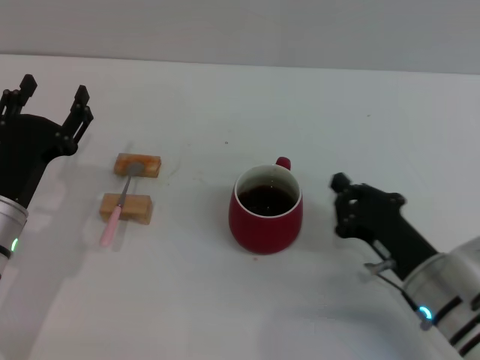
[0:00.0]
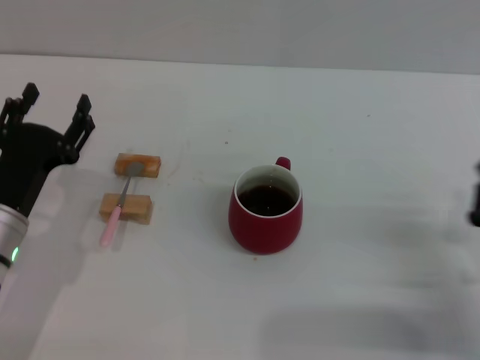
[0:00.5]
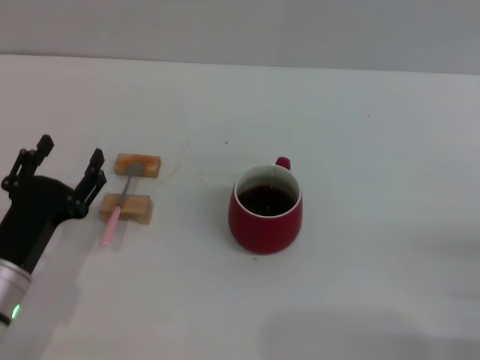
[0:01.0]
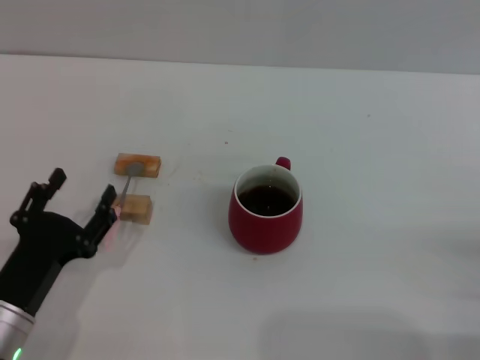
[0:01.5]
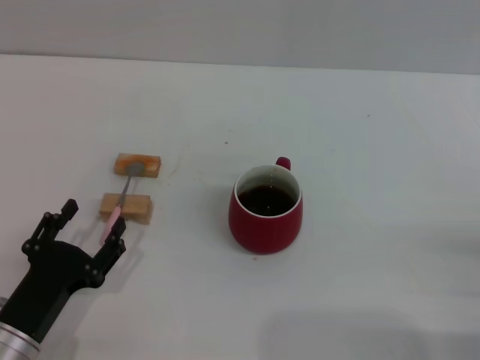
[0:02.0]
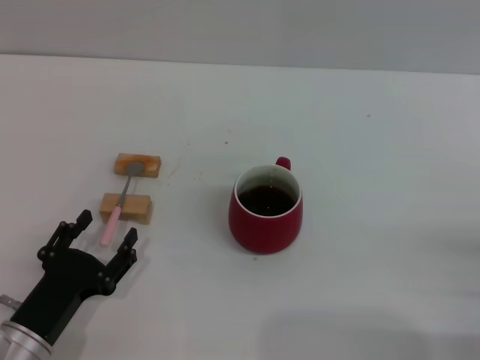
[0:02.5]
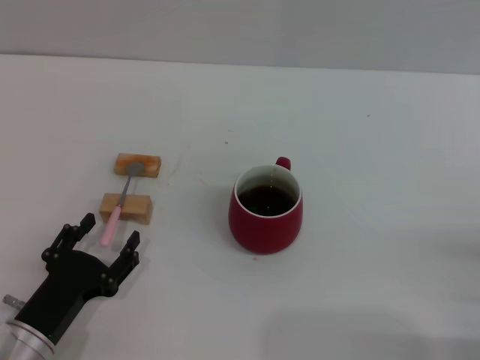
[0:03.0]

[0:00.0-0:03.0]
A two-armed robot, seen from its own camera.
Task of the whole recording: Move the red cup to the center, lift the pink spoon, stir it three times in the cup, and put the spoon into the cup.
0:00.0 to 0:01.5: The left gripper heads backward, covering some 10 cm, while the right gripper heads to the right and backward, covering about 15 cm.
0:01.5 to 0:03.0: There are only small adjustments of the grippers.

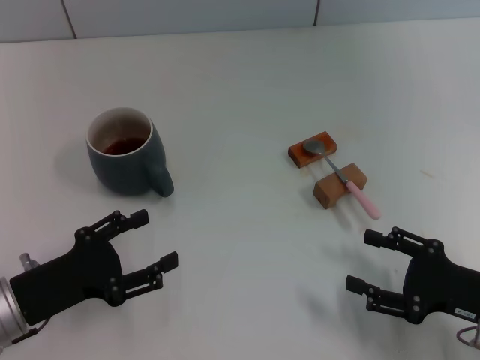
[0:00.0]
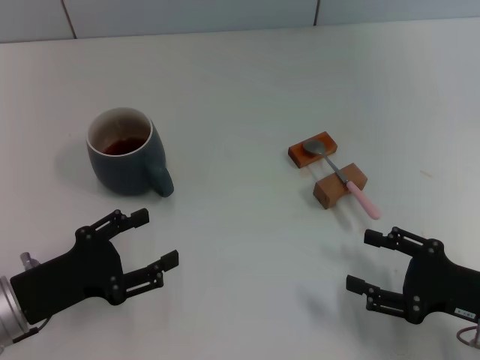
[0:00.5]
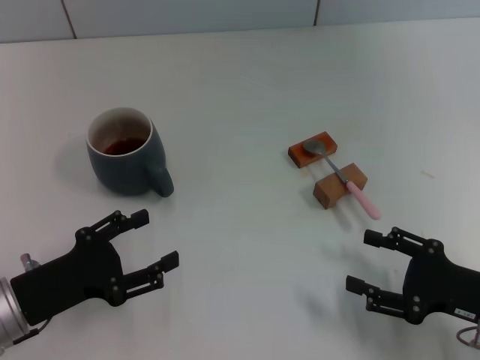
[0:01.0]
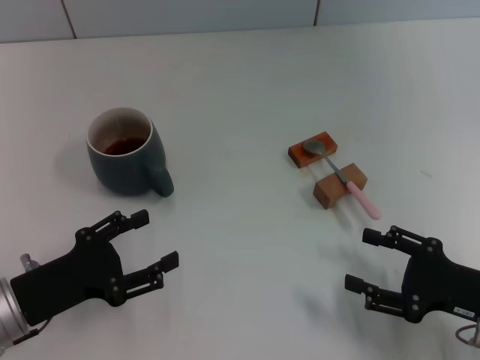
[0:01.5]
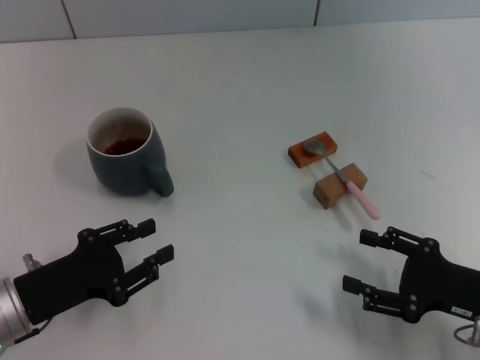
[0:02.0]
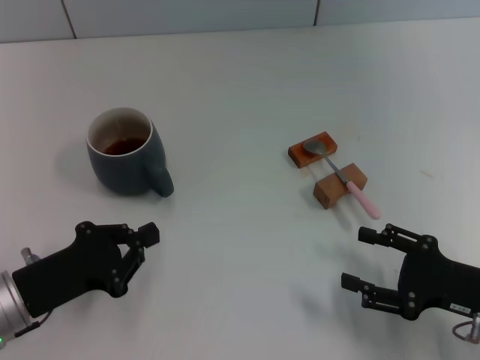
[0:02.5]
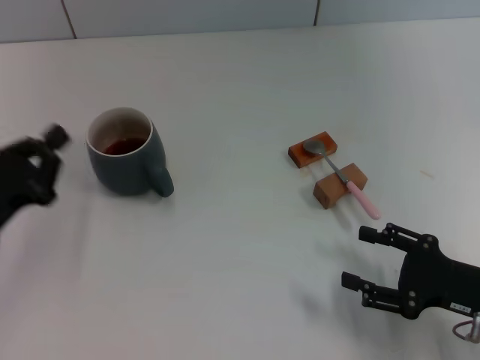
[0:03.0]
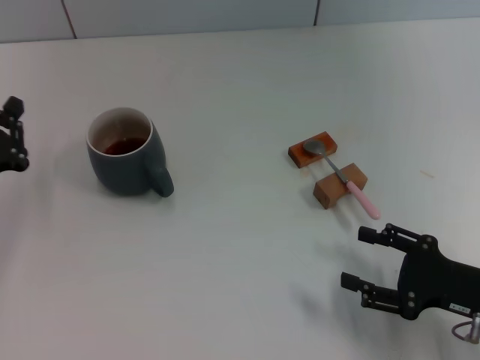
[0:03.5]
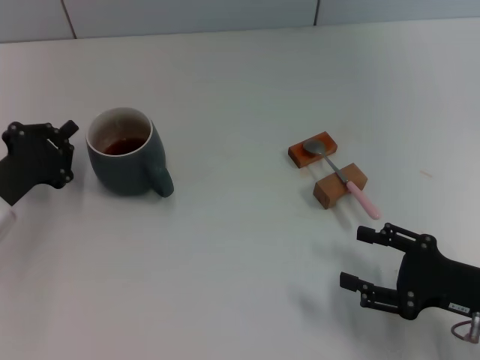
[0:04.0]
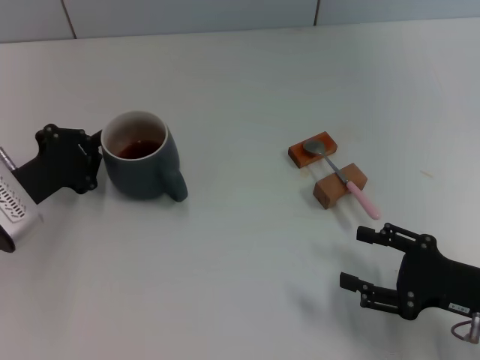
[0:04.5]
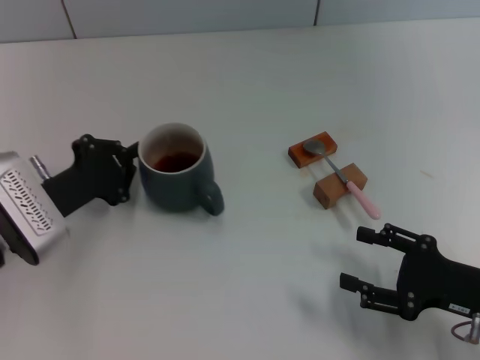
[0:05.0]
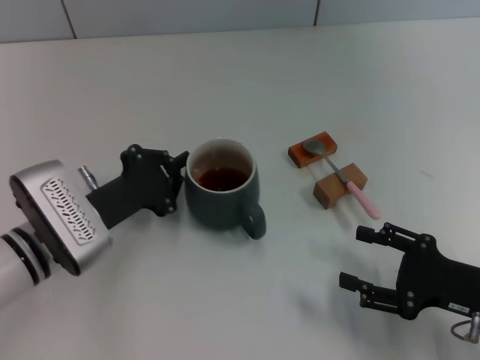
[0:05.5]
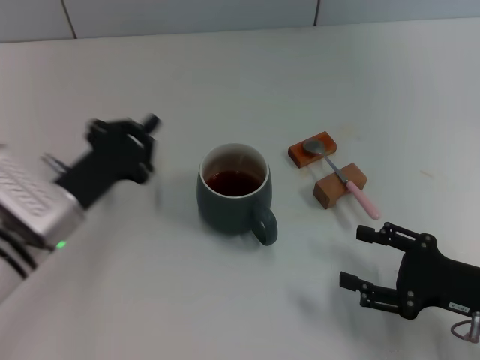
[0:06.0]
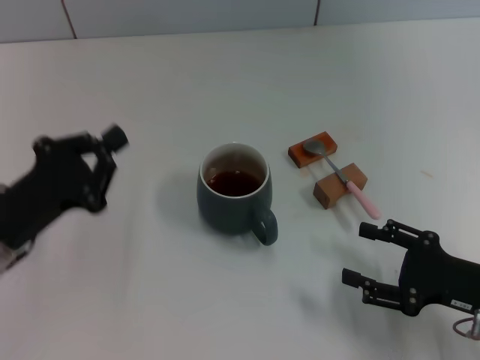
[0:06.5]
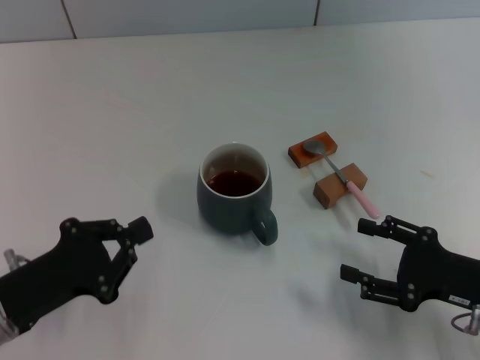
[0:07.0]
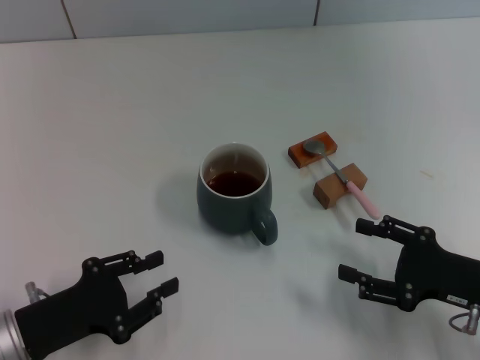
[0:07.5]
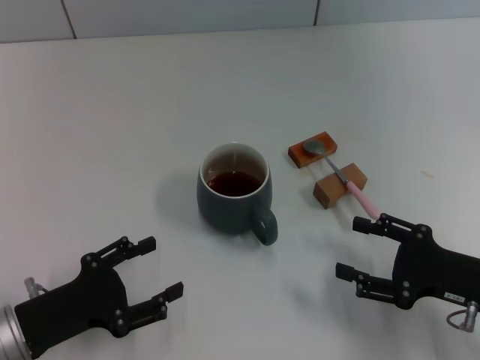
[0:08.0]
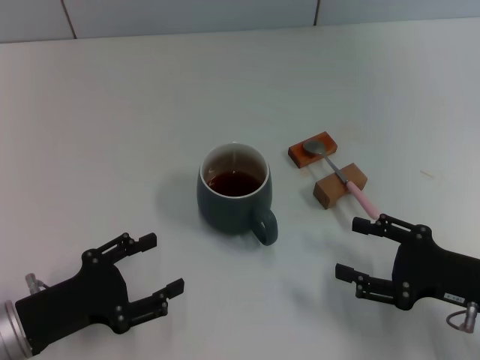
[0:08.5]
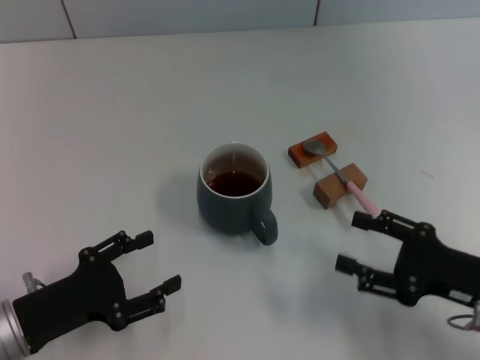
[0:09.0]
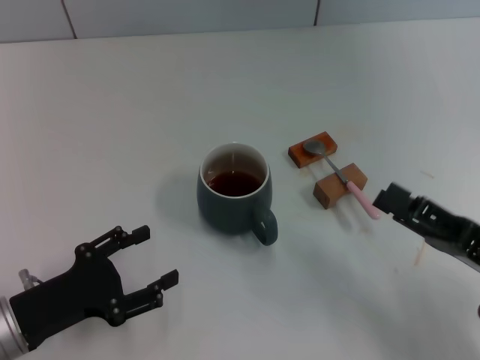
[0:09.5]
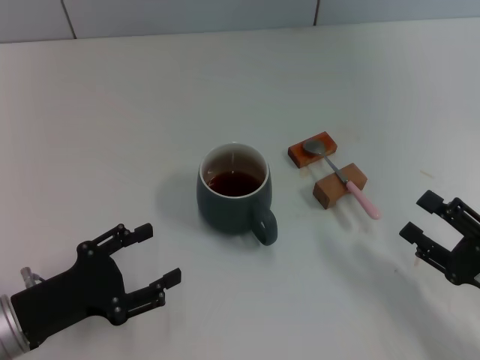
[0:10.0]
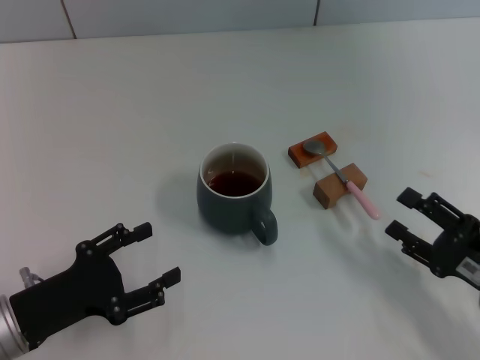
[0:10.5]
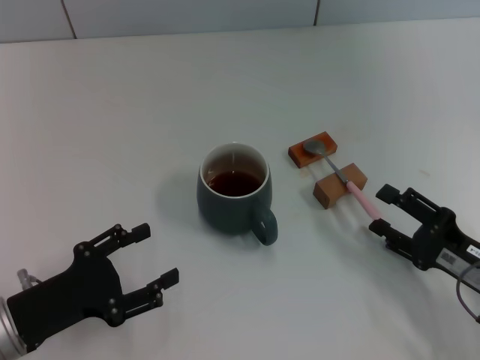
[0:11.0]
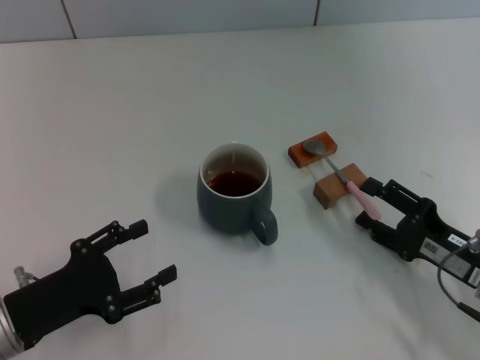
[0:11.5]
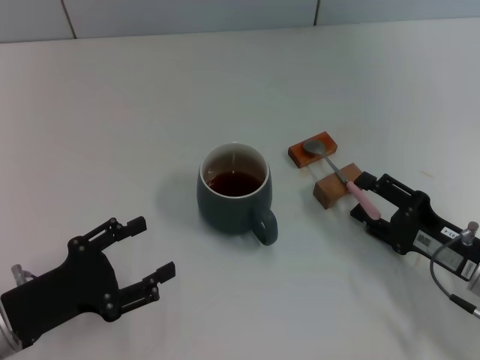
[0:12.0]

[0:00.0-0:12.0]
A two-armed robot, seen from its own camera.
Task of the whole recording: Move the grey cup to the center, lift the pink spoon, stir it three times in the cup, and put the spoon into the cup.
Step, 0:00.0 to 0:06.0: Move the cup with coffee to the center of view with the left gripper.
0:00.0 to 0:02.0: Neither gripper changes place.
0:02.0 to 0:04.0: The left gripper shifts approximately 10 cm forward, and closes.
0:04.0 to 0:06.0: The left gripper goes roughly 10 cm to the right.
0:06.0 to 0:08.0: The left gripper moves backward and to the left, approximately 10 cm, and opens.
0:08.0 to 0:10.0: The right gripper moves about 5 cm.
0:10.0 to 0:12.0: The right gripper goes some 5 cm forward.

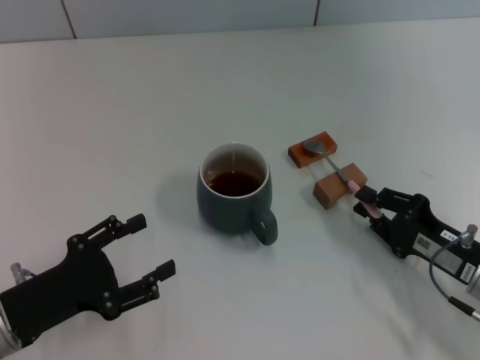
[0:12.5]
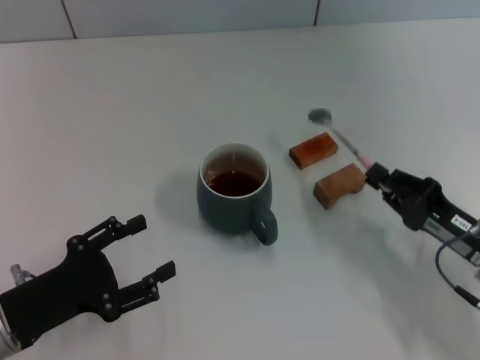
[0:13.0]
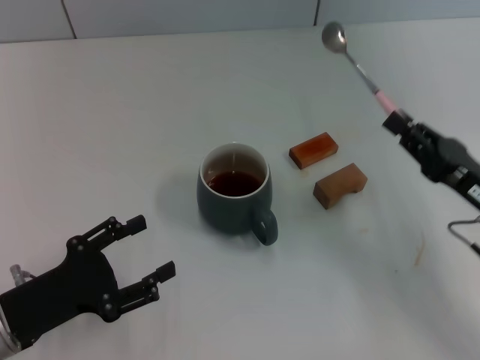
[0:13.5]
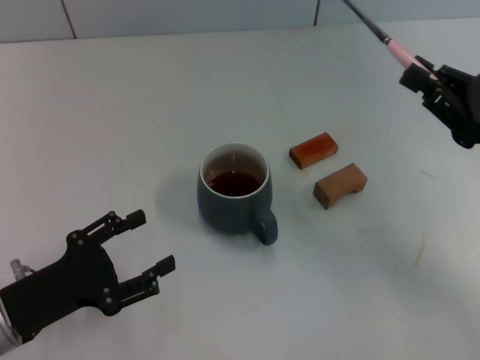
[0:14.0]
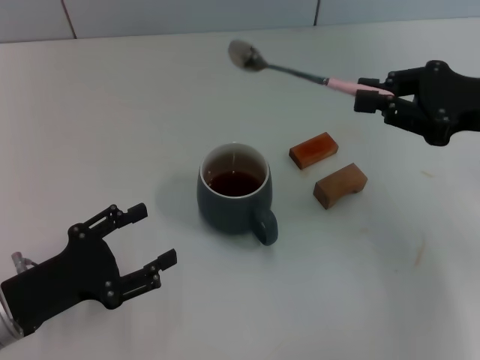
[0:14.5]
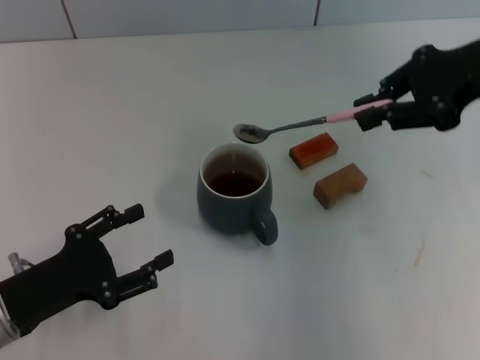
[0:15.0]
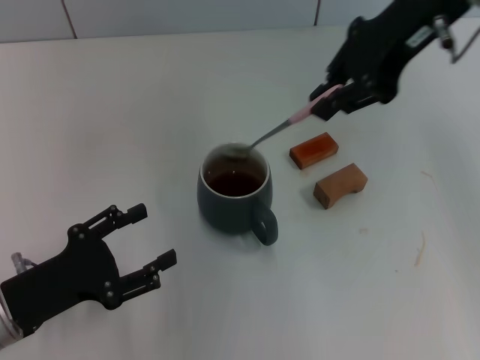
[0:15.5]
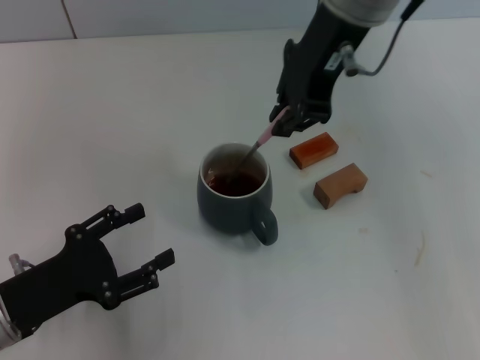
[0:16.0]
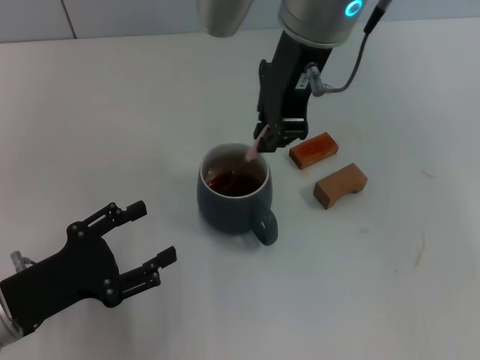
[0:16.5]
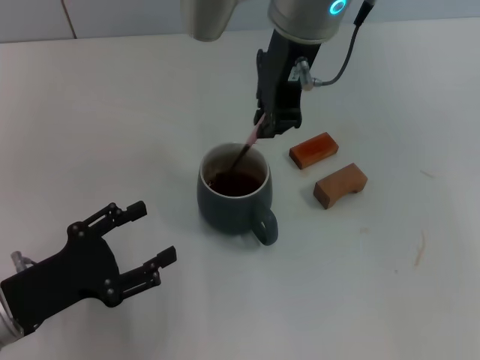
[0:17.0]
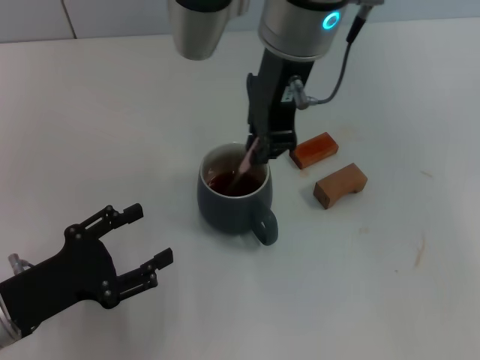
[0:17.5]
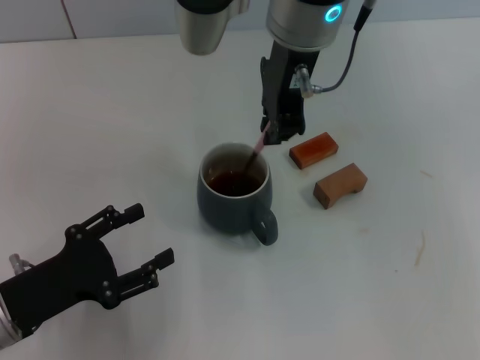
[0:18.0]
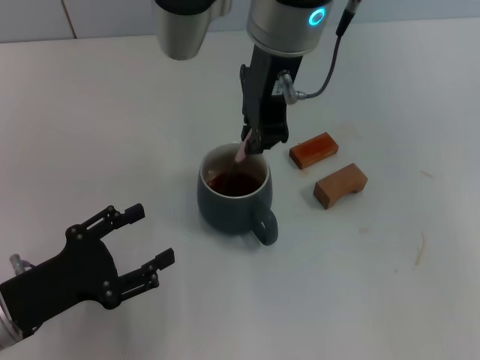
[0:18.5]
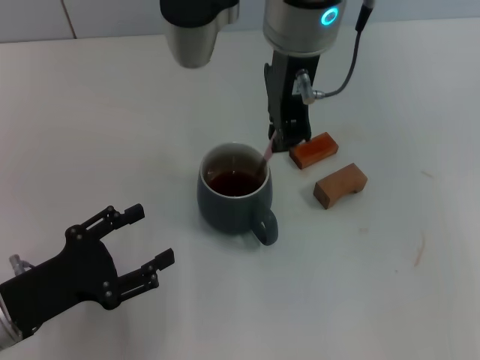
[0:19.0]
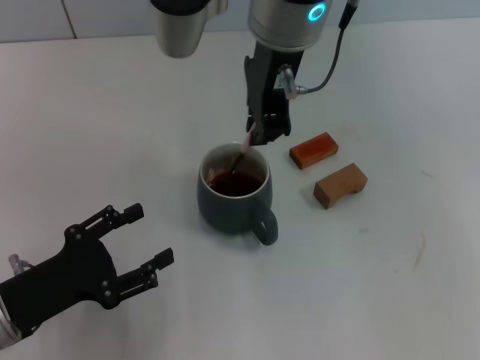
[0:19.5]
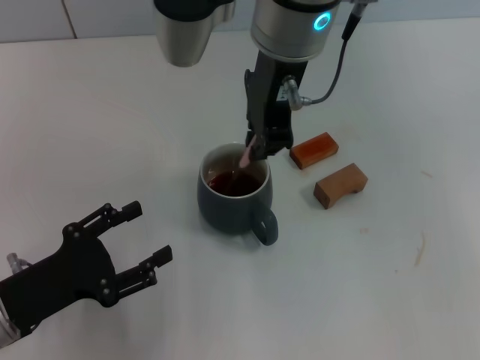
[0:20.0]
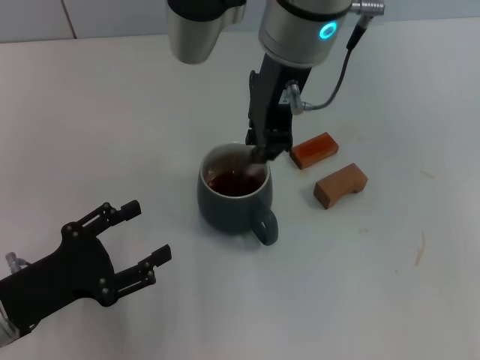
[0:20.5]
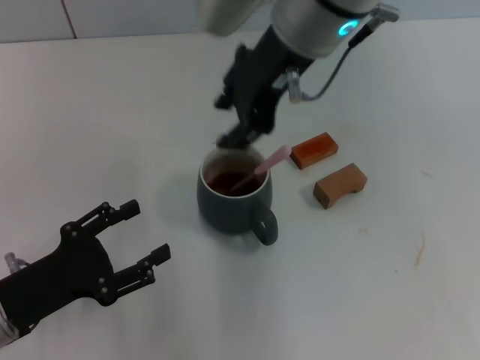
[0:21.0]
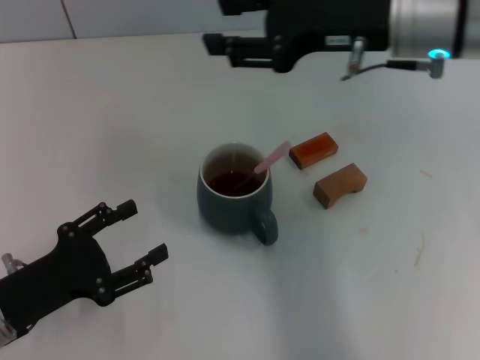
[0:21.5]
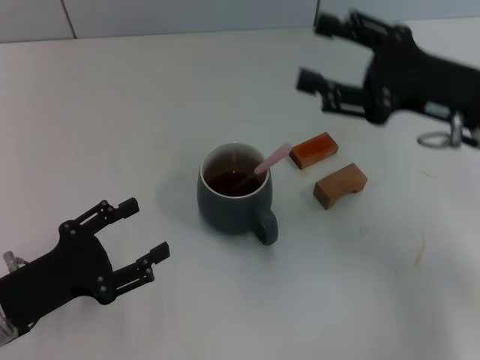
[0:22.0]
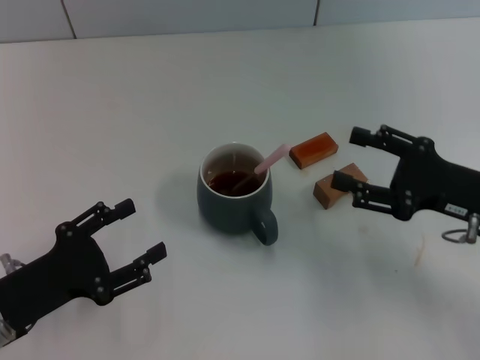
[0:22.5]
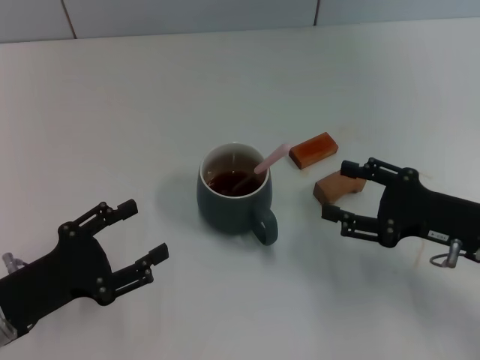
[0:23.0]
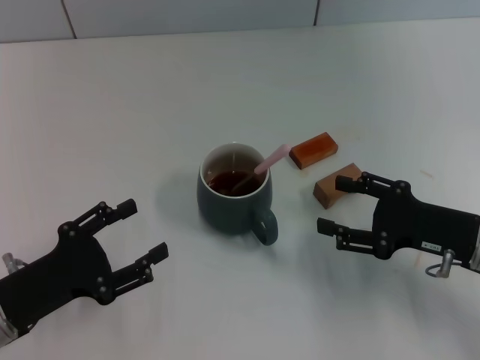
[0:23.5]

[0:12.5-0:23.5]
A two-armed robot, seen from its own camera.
Task of the whole recording: Move the grey cup to the center, lift the pink spoon, stir it three times in the cup, and put the spoon into the cup.
Step, 0:13.5 to 0:21.0: Stir the coffee in the cup with the right gripper.
0:12.5 to 0:14.5: The right gripper is displaced upward and forward by about 20 cm, and closes up.
0:14.5 to 0:16.0: The right gripper heads to the left and upward, covering roughly 25 cm.
0:16.0 to 0:18.0: The right gripper ends up about 5 cm from where it was.
0:18.0 to 0:20.0: There are only small adjustments of the grippers.
0:20.0 to 0:21.5: The right gripper is displaced to the right by approximately 15 cm, and opens up.
0:21.5 to 0:23.5: The right gripper shifts some 25 cm downward, backward and to the right.
